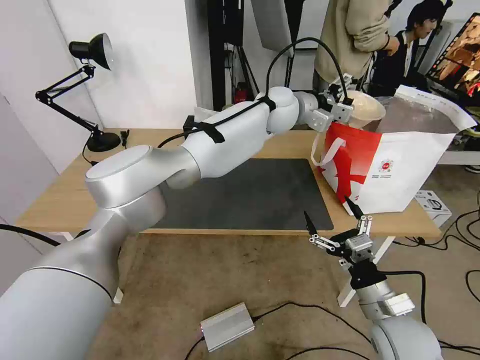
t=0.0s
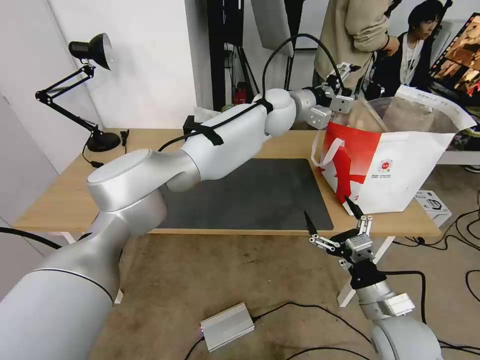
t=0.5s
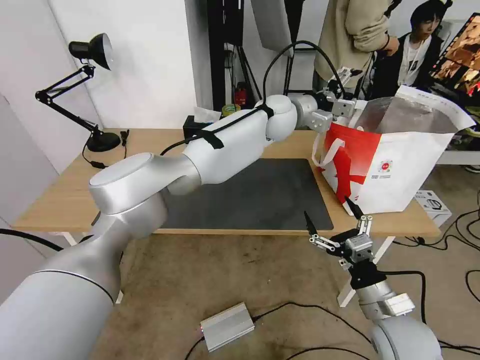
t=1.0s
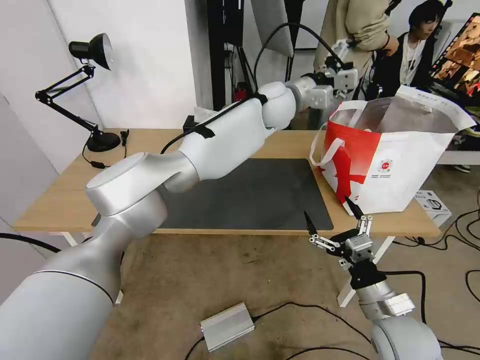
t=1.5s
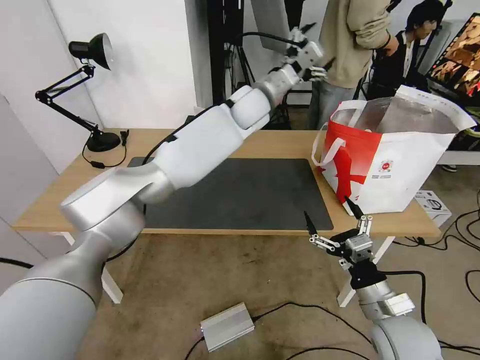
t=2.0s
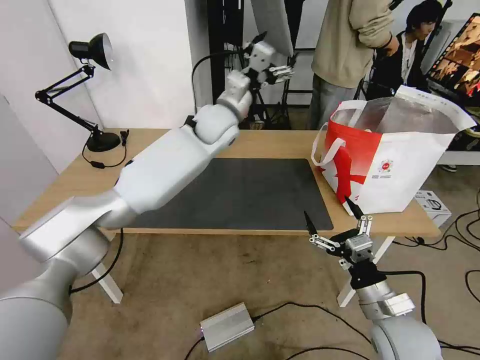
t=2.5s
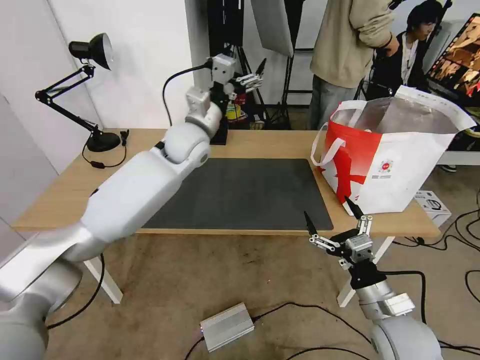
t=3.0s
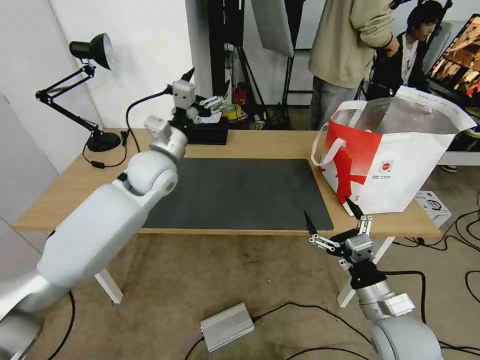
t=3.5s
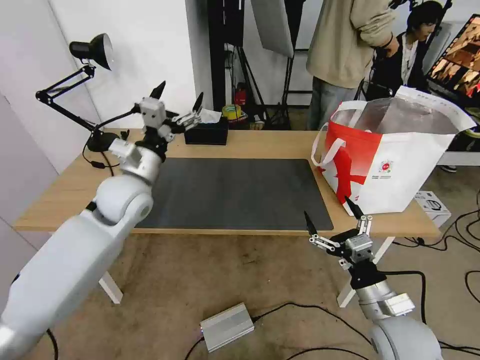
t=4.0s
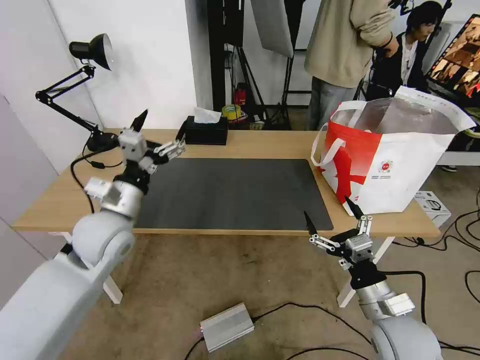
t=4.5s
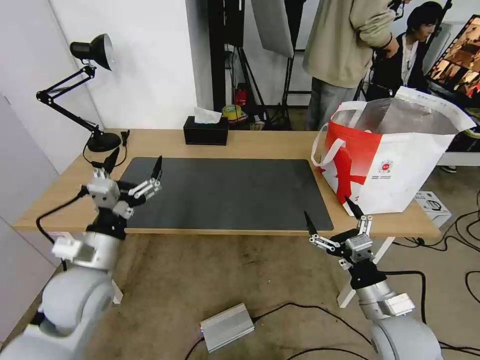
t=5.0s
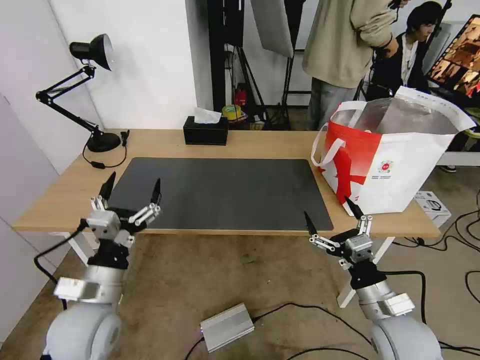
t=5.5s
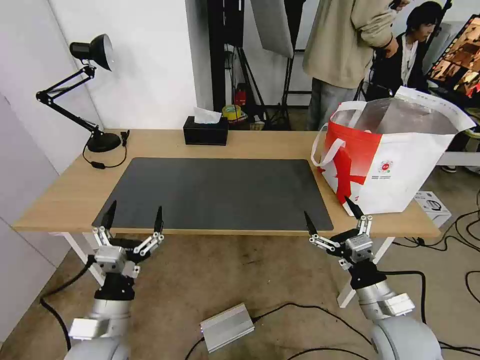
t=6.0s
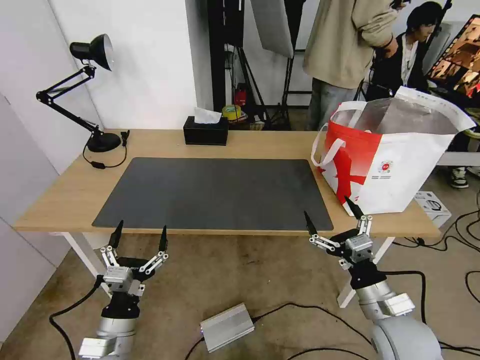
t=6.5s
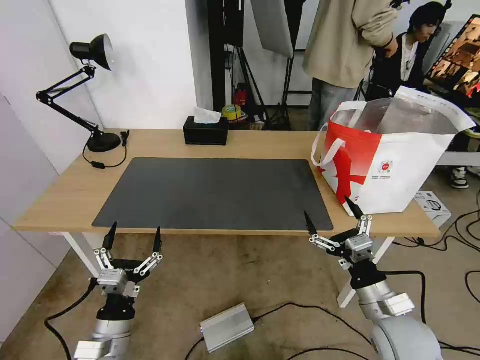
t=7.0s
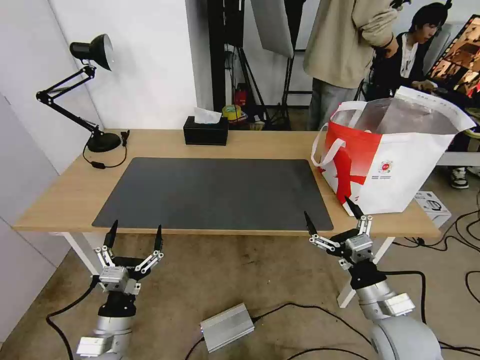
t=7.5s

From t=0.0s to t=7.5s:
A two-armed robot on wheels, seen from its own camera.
Task of the whole recording: Pick up the trash from the table and place it into the takeout bag.
From t=0.0s to t=2.0s: The left gripper heads to the left, covering some 5 cm.
From t=2.0s to t=4.0s: The left gripper goes some 30 cm to the left and backward.
From t=4.0s to t=5.5s: The left gripper goes approximately 25 cm backward and downward.
From t=5.5s to t=7.5s: The left gripper goes some 10 cm downward.
